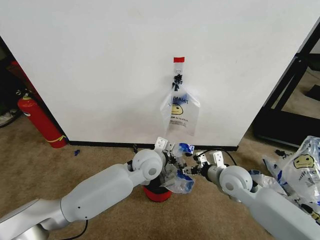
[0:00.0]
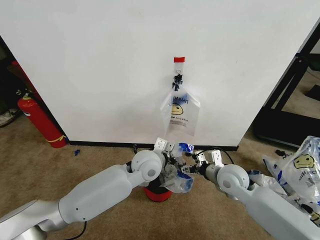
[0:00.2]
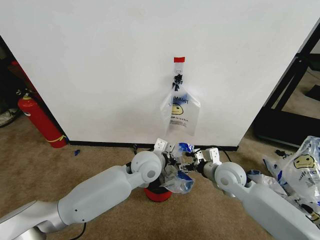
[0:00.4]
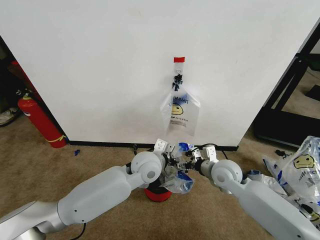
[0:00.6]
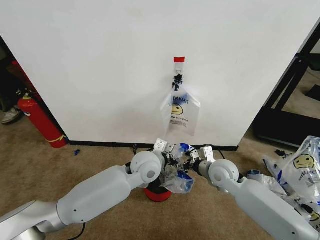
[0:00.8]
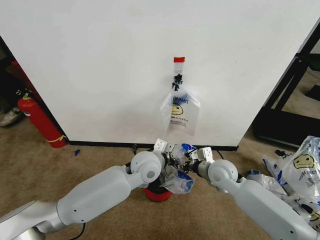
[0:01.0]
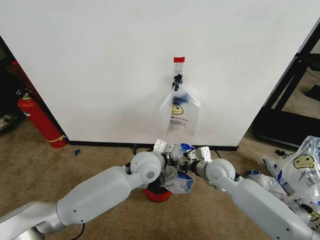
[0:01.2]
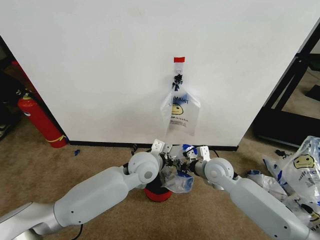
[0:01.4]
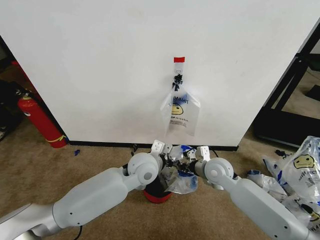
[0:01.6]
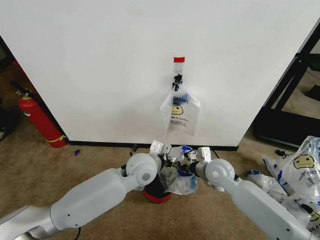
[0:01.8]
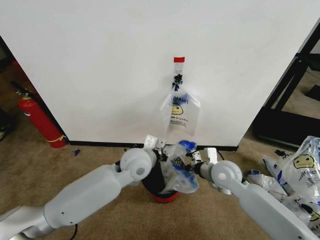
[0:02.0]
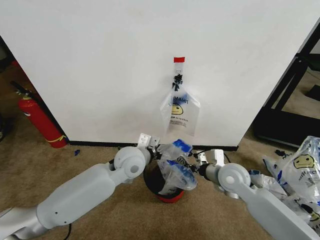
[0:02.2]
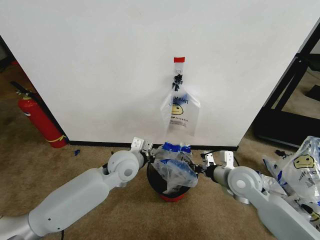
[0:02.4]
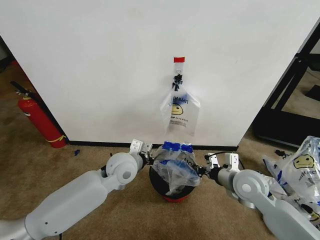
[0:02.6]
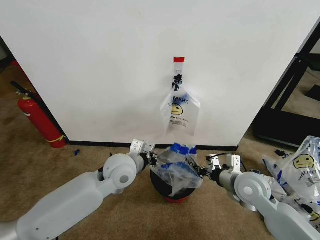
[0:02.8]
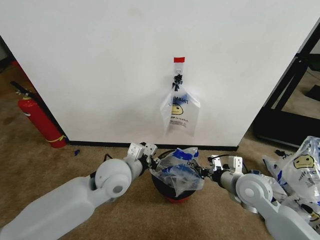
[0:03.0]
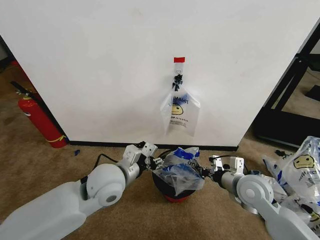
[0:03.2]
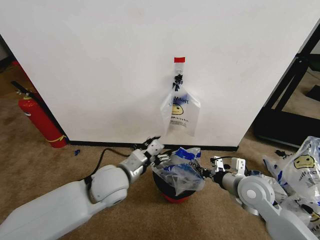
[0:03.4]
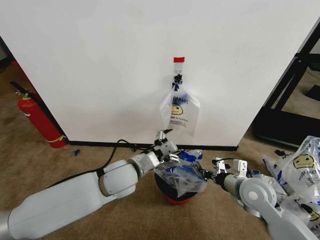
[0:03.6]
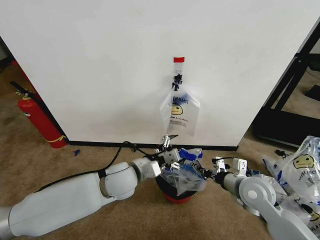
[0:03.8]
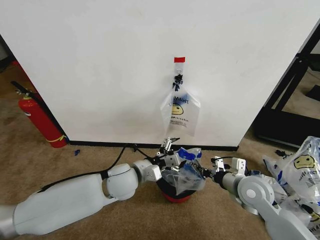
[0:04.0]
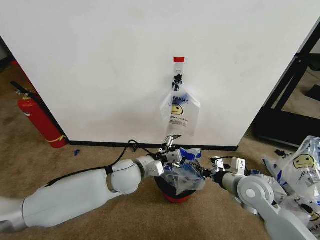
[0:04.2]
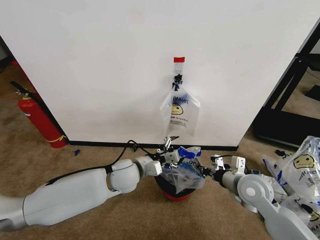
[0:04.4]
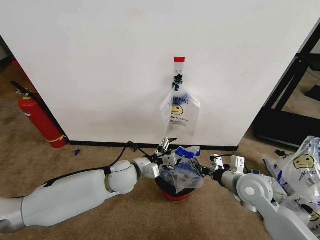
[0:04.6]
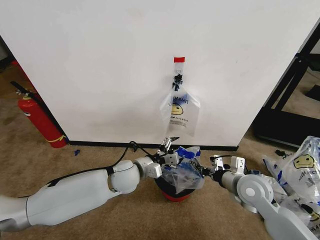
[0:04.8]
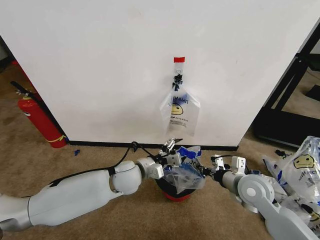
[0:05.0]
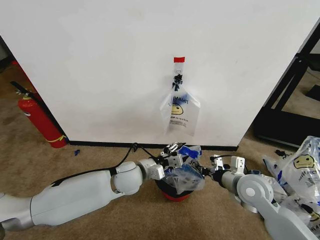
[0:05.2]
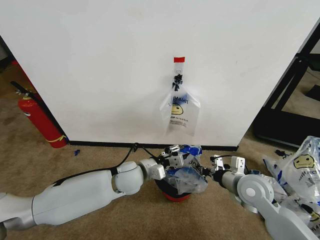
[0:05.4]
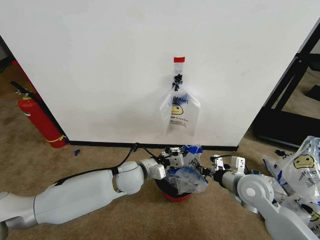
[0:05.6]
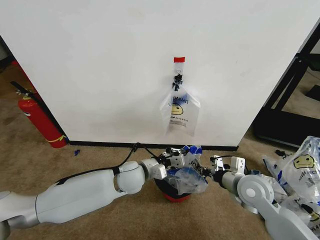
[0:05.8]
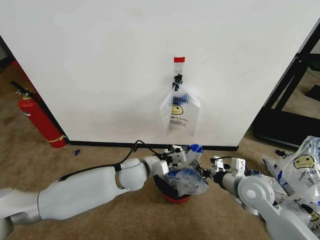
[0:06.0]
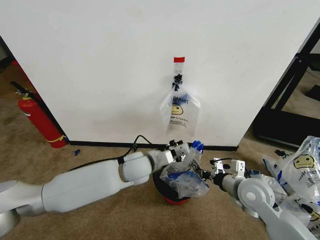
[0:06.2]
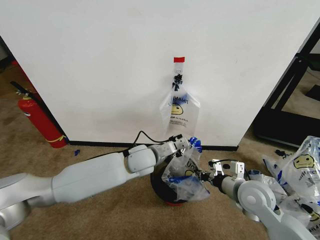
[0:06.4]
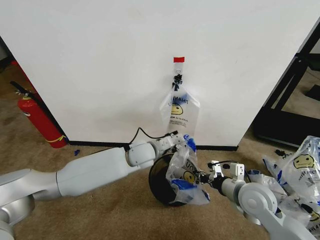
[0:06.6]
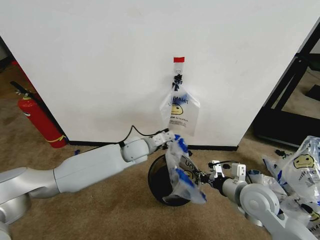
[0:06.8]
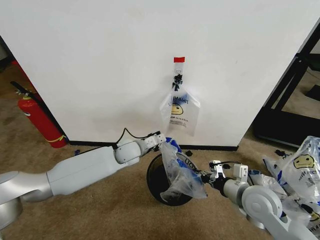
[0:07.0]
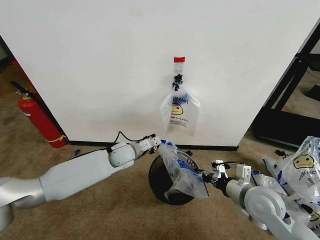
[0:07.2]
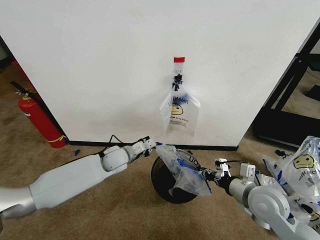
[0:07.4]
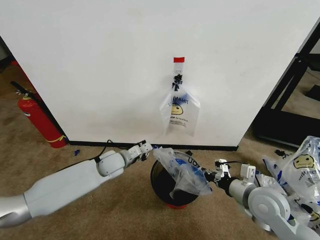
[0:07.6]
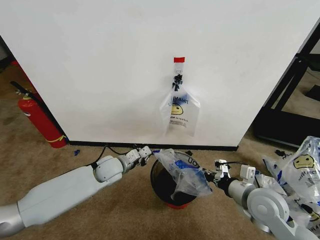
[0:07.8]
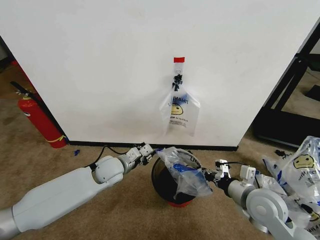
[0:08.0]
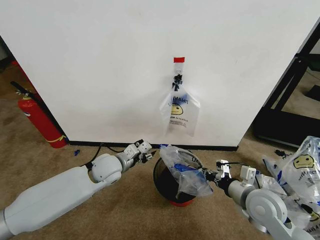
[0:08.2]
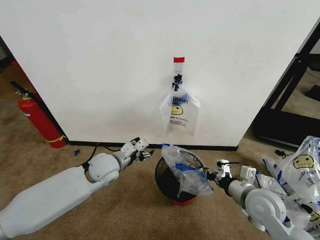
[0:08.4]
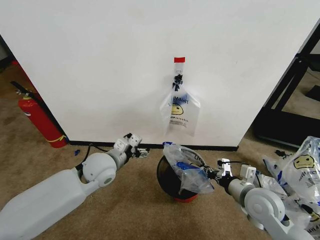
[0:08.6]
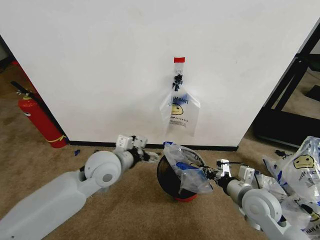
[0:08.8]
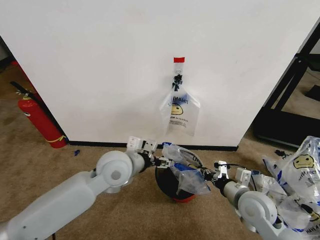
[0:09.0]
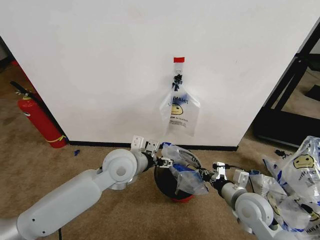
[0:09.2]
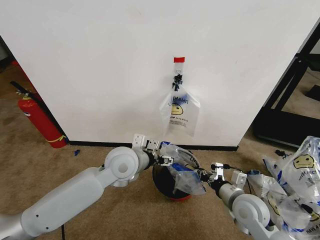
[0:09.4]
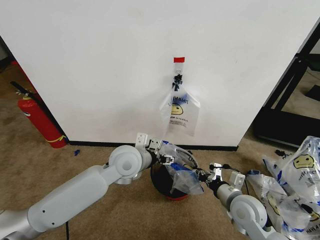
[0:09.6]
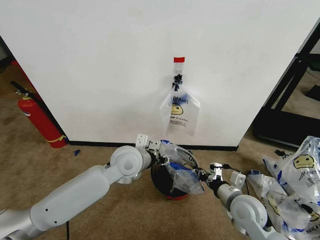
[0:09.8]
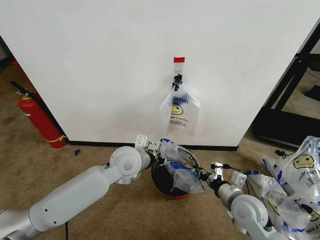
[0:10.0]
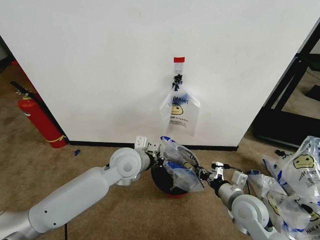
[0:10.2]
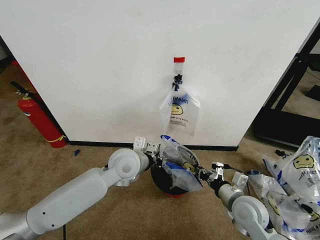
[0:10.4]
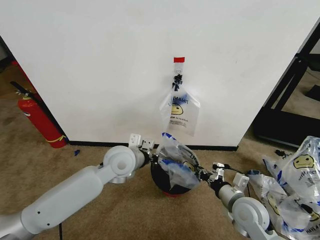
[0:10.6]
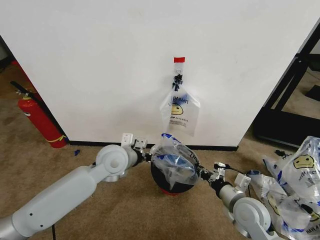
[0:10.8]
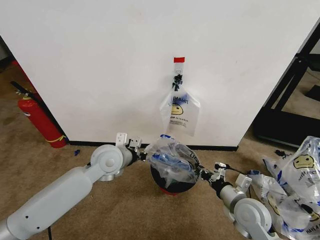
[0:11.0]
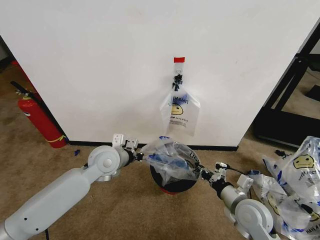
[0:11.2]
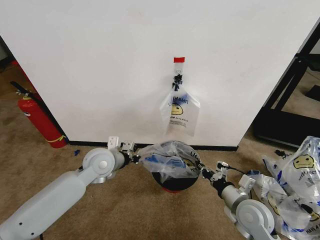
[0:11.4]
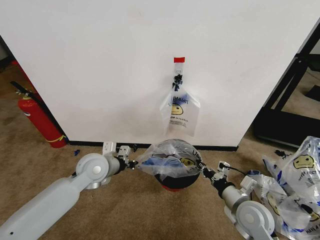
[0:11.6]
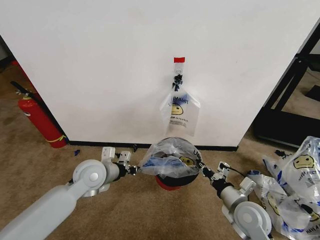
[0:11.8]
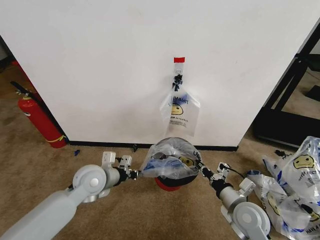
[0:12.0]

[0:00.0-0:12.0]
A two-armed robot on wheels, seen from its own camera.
Task of the whole recording: Pick up the garbage bag from the wall and place it over the trash bin.
0:00.0 to 0:01.6: The right gripper changes place by some 5 cm, and closes up.
0:01.6 to 0:03.0: The left gripper goes roughly 5 cm to the left, while the right gripper heads backward and to the right, covering some 10 cm.
0:03.0 to 0:04.4: The left gripper heads downward, covering some 5 cm, and opens up.
0:04.4 to 0:06.0: The left gripper closes up.
0:06.0 to 0:07.6: The left gripper moves to the left and forward, roughly 10 cm.
0:07.6 to 0:09.0: The left gripper moves upward, backward and to the right, about 15 cm, and opens its fingers.
0:09.0 to 0:10.4: The left gripper closes its fingers.
0:10.4 to 0:12.0: The left gripper goes roughly 10 cm to the left and downward.

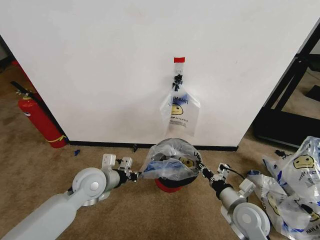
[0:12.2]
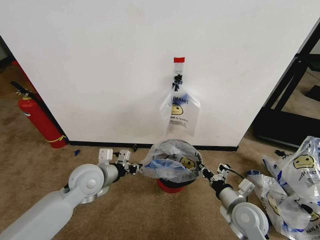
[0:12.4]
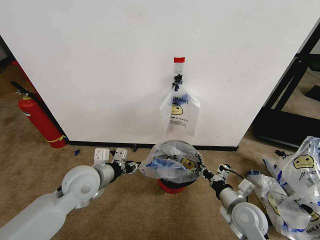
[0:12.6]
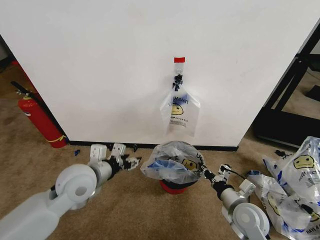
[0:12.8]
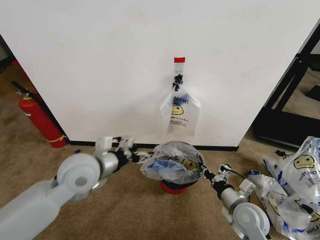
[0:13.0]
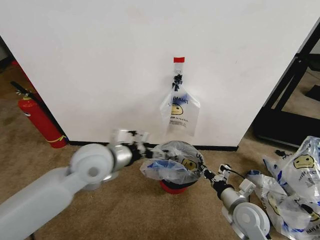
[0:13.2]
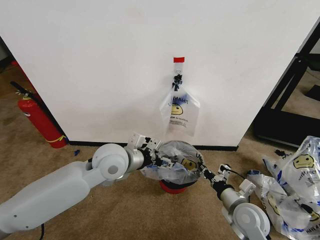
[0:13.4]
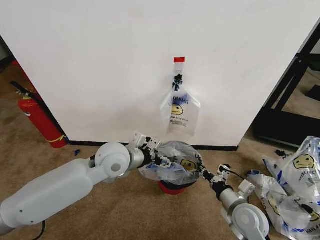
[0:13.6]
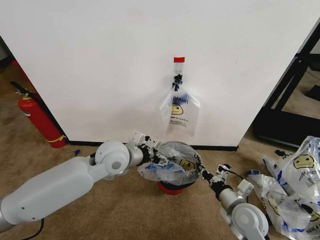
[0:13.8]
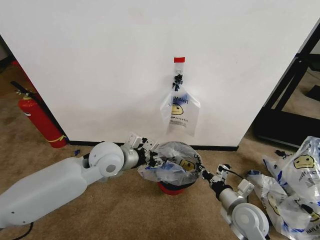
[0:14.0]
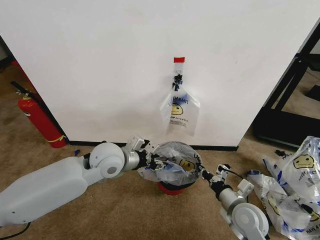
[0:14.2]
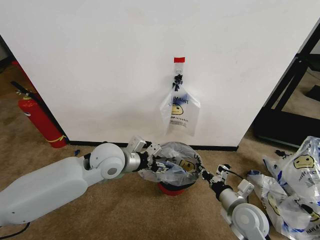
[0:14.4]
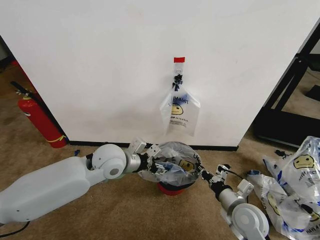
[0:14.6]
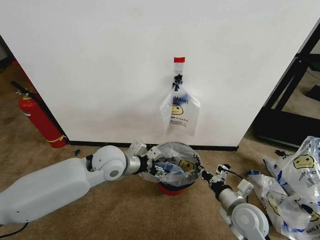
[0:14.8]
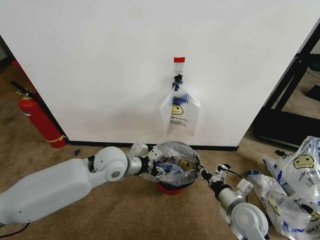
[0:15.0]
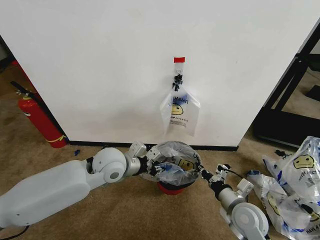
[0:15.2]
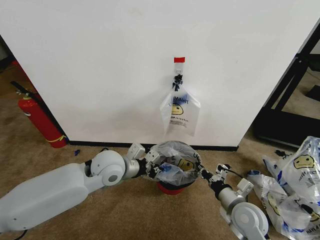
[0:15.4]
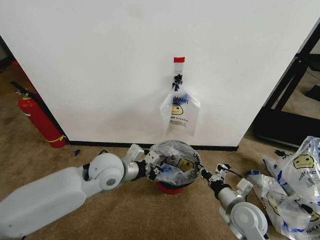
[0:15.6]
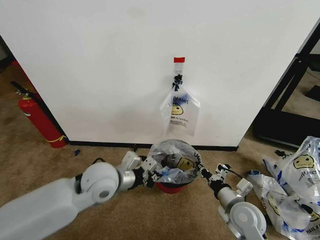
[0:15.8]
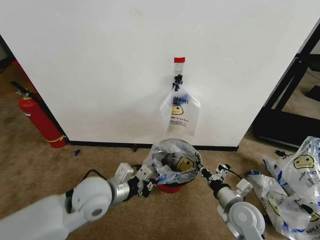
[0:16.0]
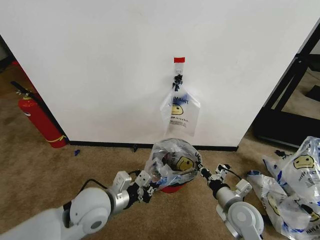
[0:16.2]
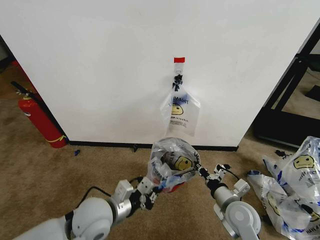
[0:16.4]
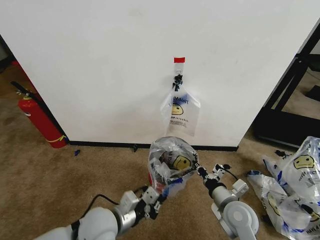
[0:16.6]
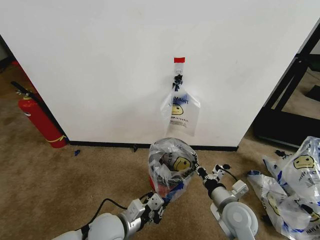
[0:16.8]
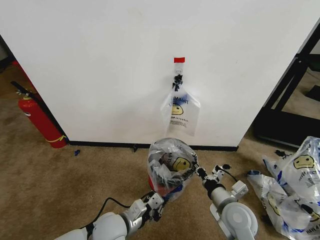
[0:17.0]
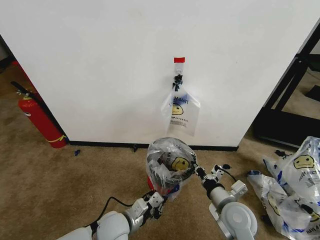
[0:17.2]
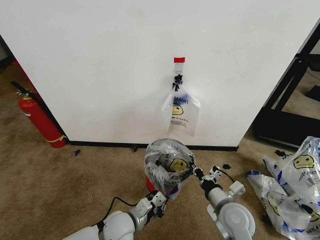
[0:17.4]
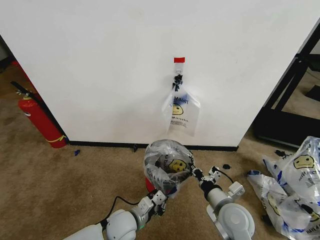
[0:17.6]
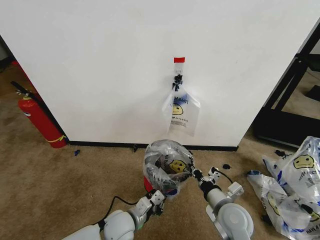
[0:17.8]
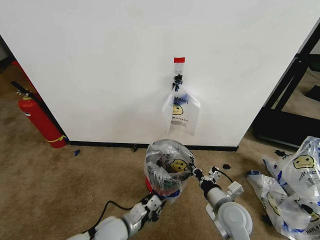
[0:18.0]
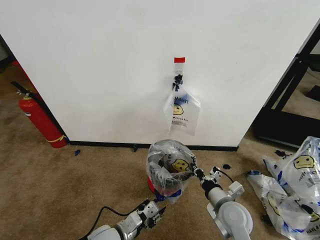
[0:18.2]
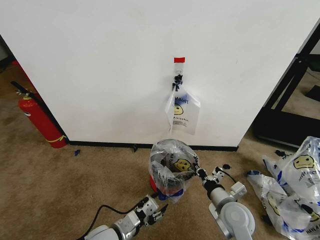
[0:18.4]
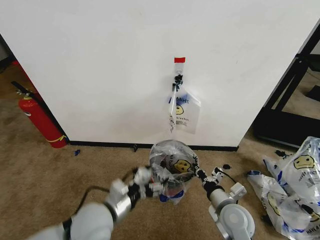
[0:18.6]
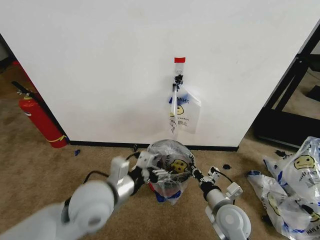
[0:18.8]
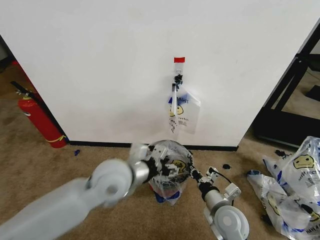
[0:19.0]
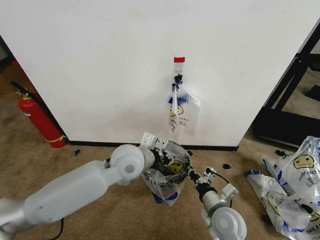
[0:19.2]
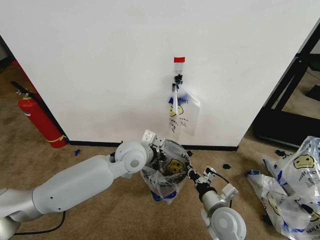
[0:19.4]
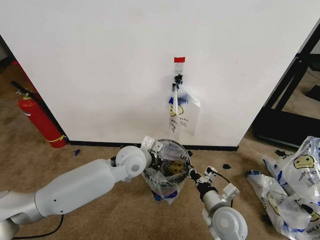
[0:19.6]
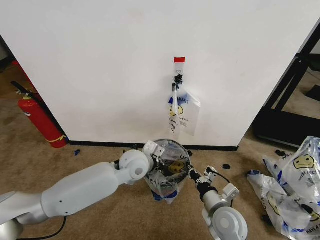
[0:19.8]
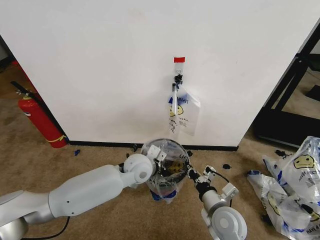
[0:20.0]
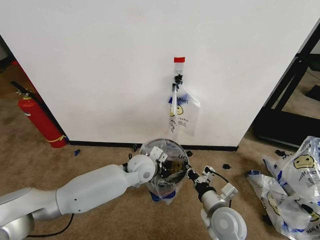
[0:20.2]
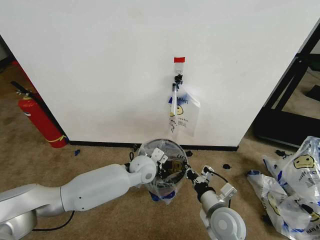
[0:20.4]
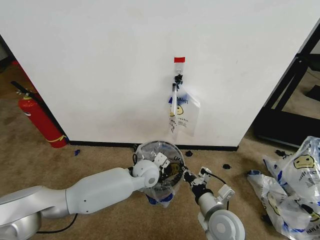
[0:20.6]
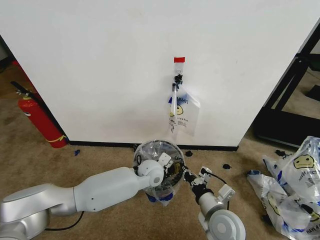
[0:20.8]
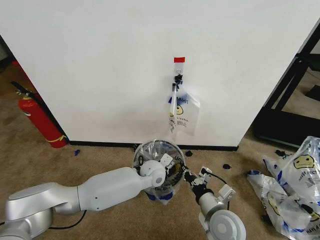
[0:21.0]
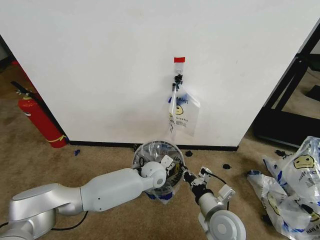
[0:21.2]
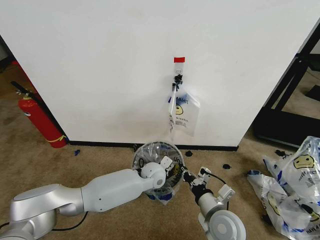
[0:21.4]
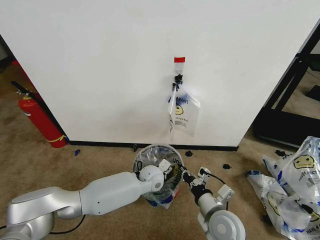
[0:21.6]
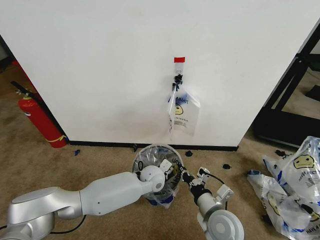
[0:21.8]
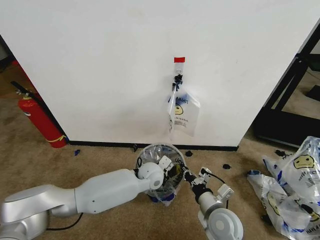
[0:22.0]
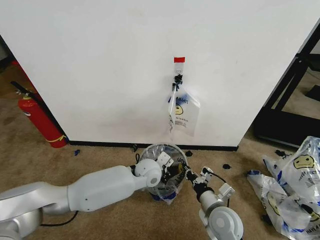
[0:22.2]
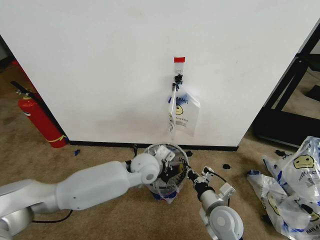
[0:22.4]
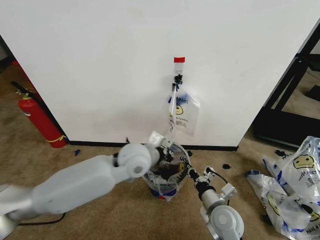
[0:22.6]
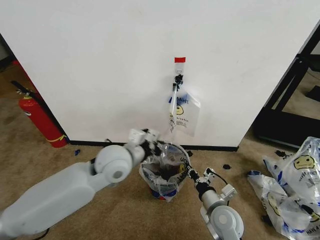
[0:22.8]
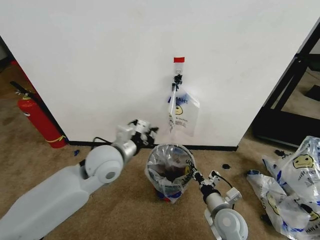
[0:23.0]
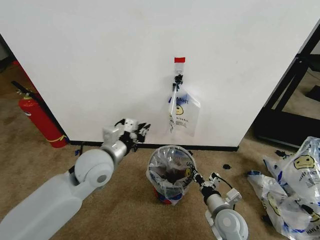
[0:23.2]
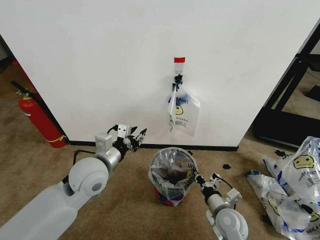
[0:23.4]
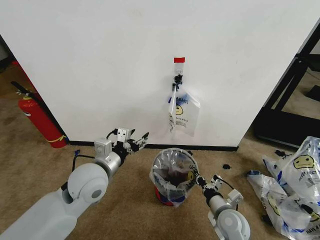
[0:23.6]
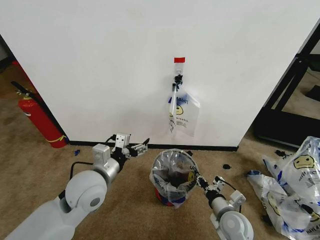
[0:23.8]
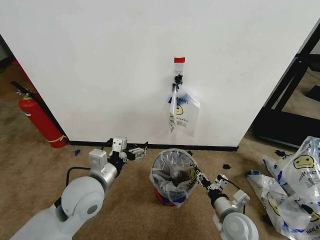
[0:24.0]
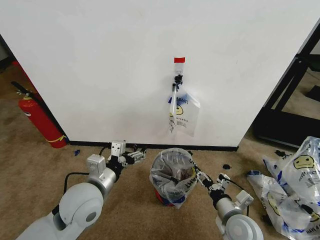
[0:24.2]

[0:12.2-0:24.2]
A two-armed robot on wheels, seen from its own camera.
Task of the whole recording: Pick up the garbage bag from the wall and place it over the trash bin.
0:12.2 to 0:13.8: The left gripper goes about 10 cm upward and to the right, and opens up.
0:13.8 to 0:15.2: The left gripper closes up.
0:15.2 to 0:16.6: The left gripper moves backward and downward, about 15 cm.
0:16.6 to 0:18.2: The left gripper goes some 10 cm downward, and opens up.
0:18.2 to 0:19.8: The left gripper heads forward and upward, covering roughly 25 cm, and closes its fingers.
0:19.8 to 0:21.2: The left gripper is displaced downward and to the right by roughly 10 cm.
0:21.2 to 0:22.6: The left gripper heads upward, covering some 15 cm.
0:22.6 to 0:24.2: The right gripper ends up approximately 5 cm from where it was, and opens its fingers; the left gripper goes about 15 cm to the left and backward, and opens its fingers.
